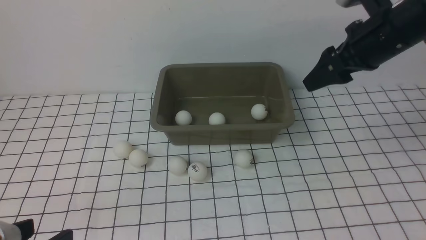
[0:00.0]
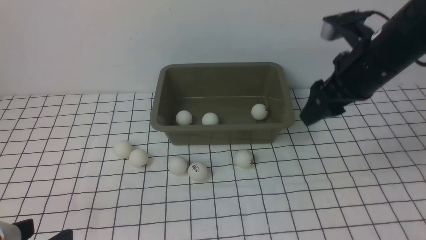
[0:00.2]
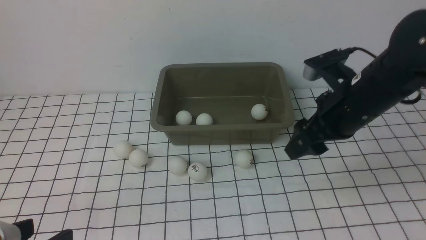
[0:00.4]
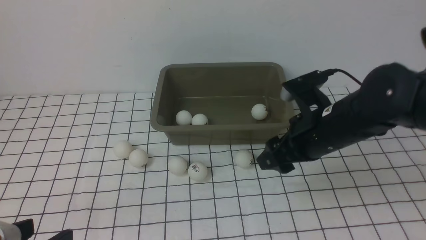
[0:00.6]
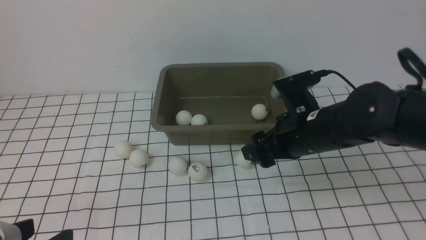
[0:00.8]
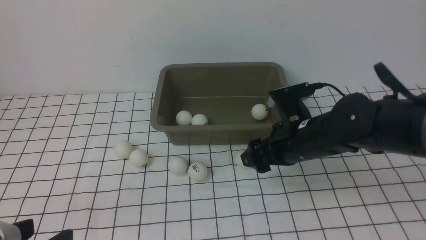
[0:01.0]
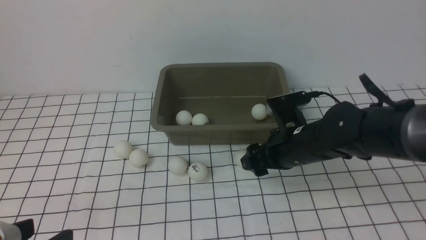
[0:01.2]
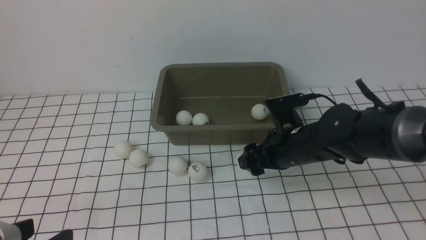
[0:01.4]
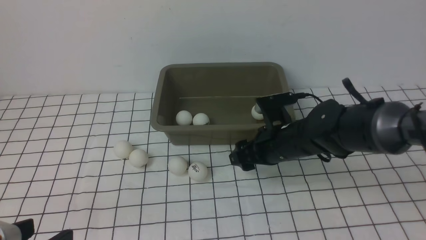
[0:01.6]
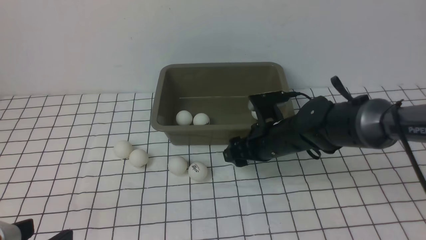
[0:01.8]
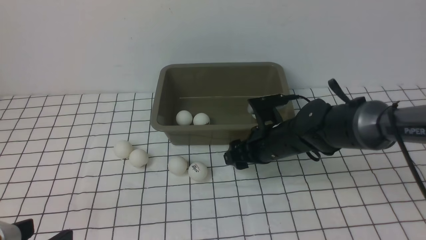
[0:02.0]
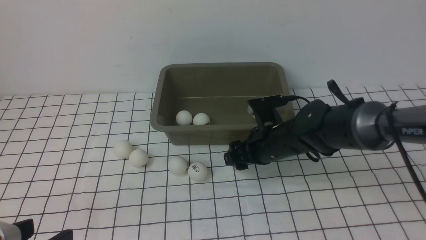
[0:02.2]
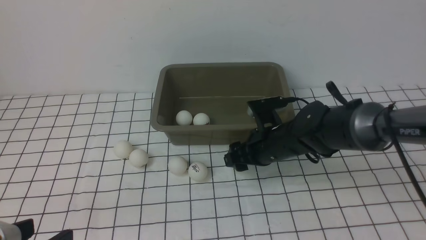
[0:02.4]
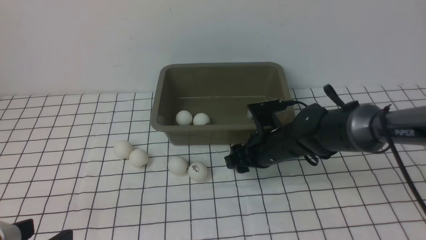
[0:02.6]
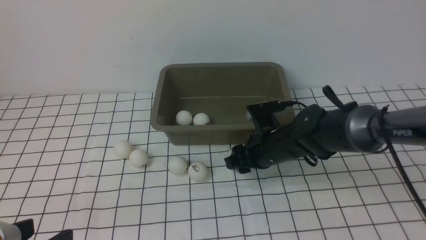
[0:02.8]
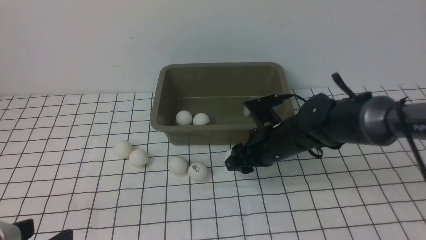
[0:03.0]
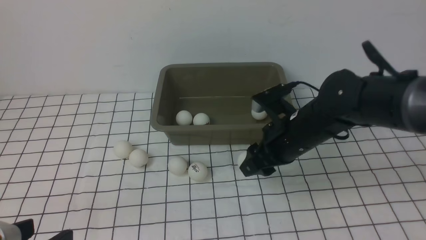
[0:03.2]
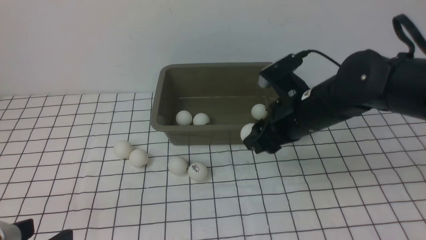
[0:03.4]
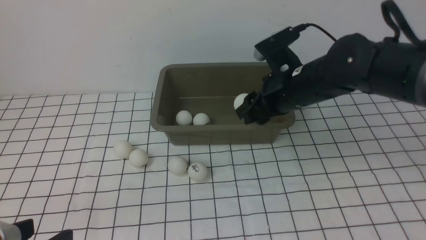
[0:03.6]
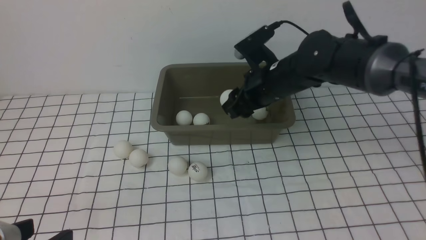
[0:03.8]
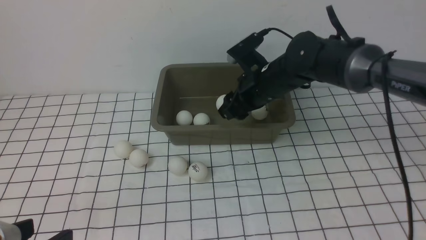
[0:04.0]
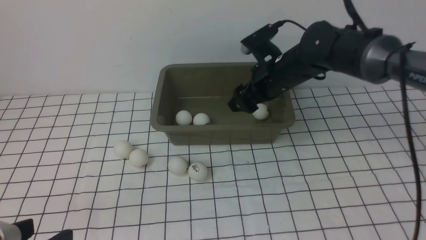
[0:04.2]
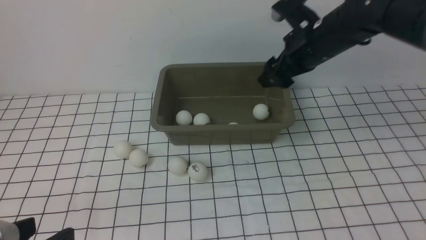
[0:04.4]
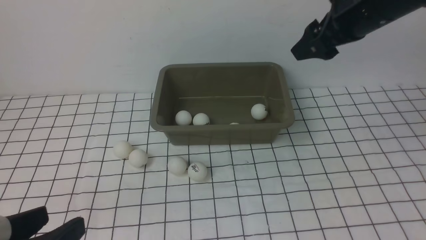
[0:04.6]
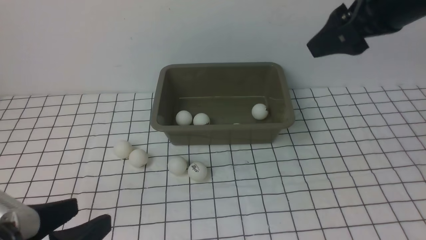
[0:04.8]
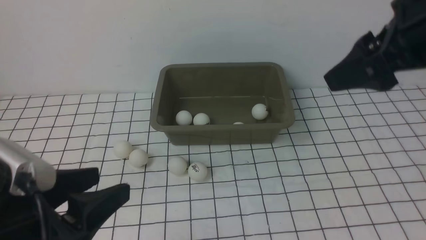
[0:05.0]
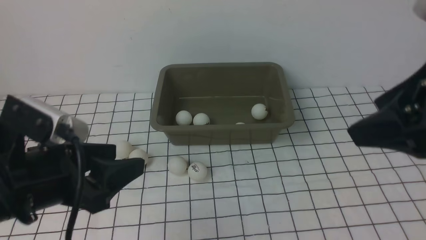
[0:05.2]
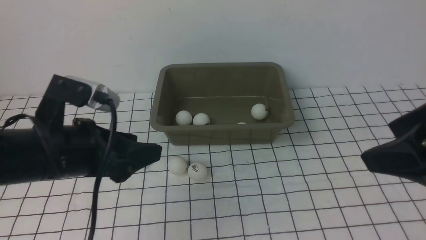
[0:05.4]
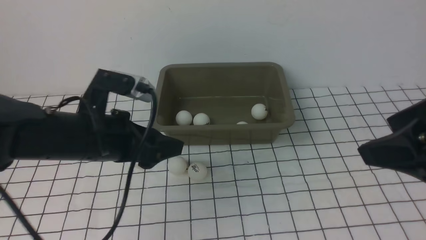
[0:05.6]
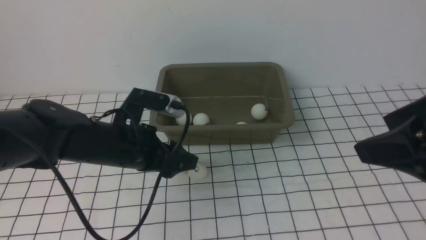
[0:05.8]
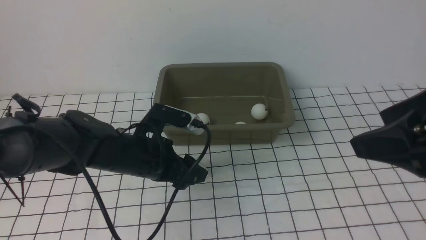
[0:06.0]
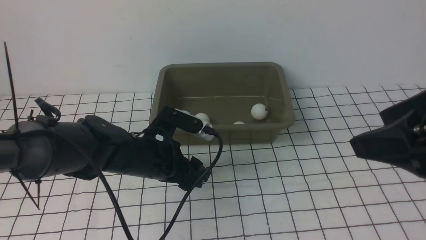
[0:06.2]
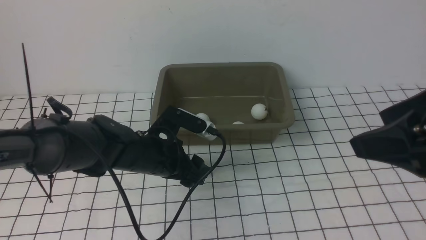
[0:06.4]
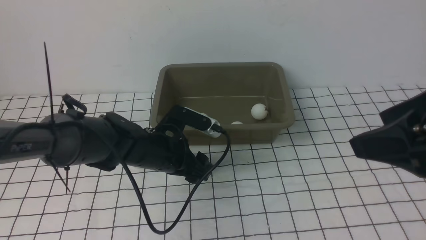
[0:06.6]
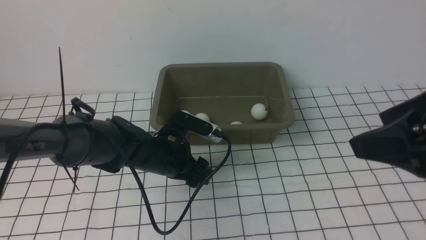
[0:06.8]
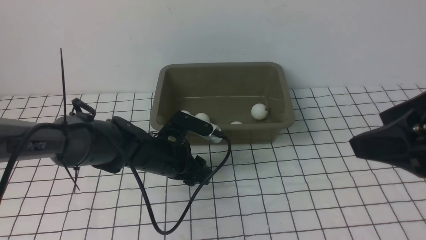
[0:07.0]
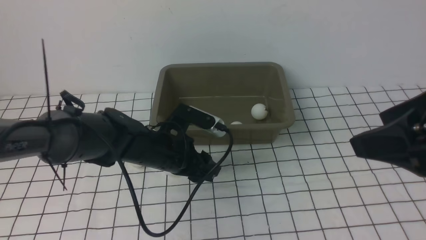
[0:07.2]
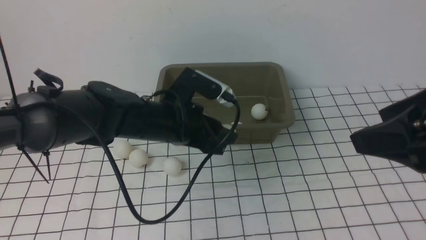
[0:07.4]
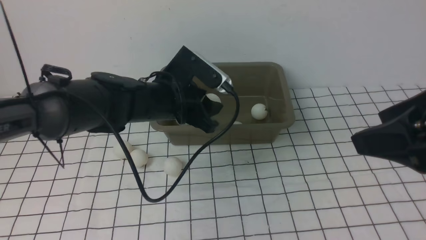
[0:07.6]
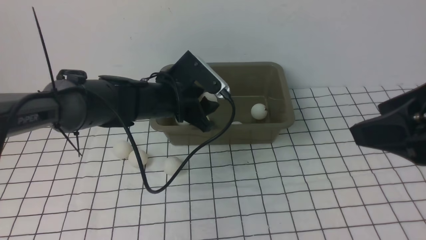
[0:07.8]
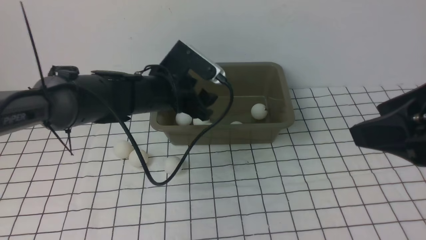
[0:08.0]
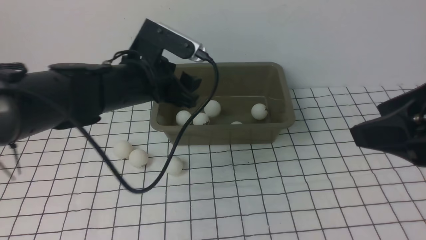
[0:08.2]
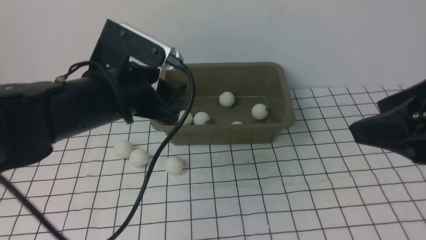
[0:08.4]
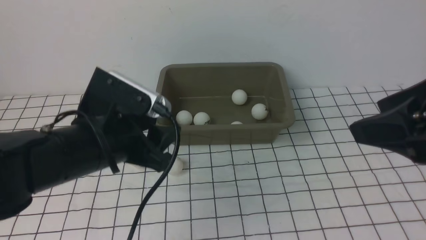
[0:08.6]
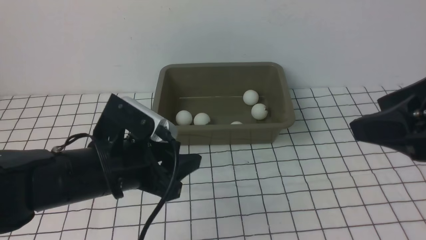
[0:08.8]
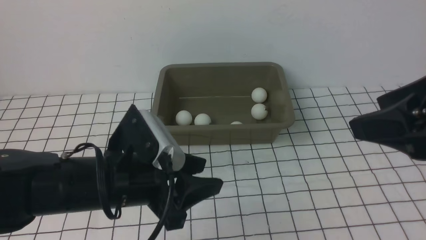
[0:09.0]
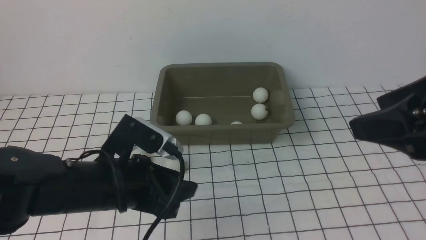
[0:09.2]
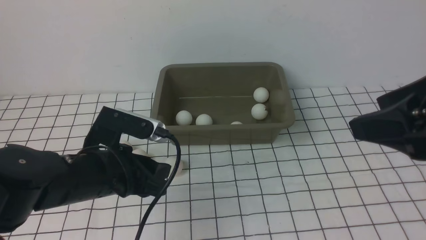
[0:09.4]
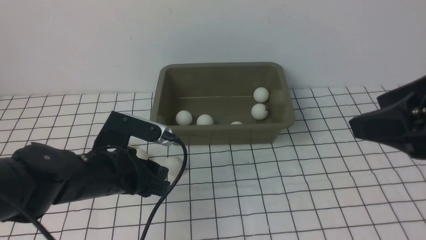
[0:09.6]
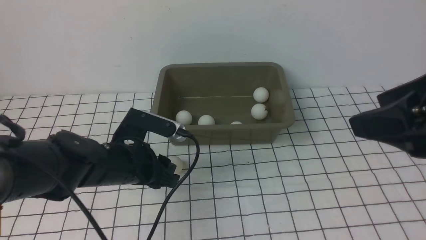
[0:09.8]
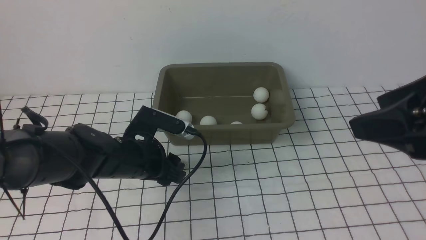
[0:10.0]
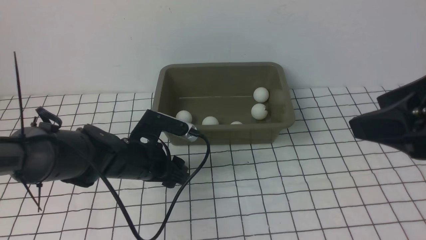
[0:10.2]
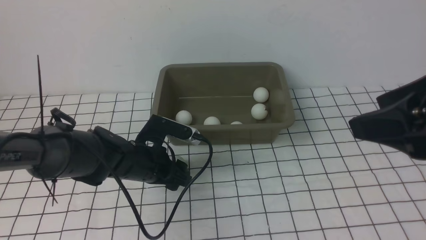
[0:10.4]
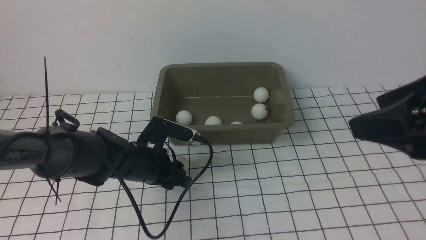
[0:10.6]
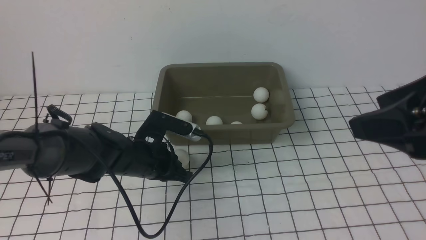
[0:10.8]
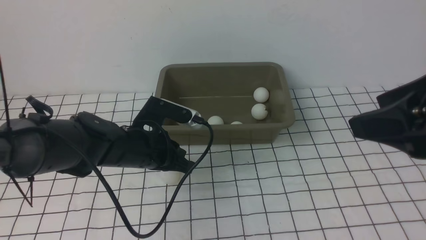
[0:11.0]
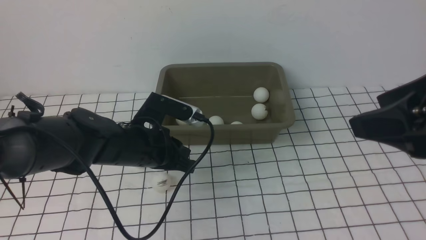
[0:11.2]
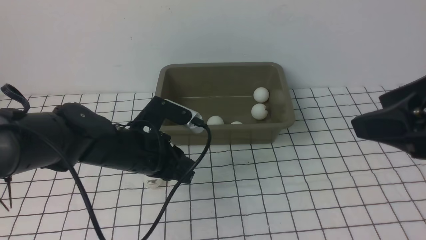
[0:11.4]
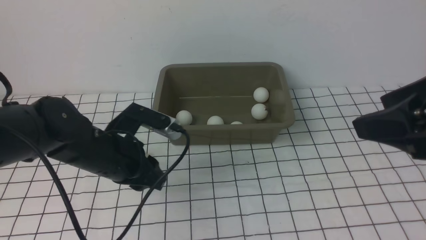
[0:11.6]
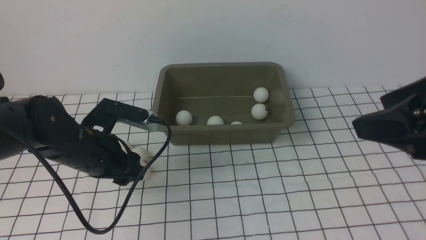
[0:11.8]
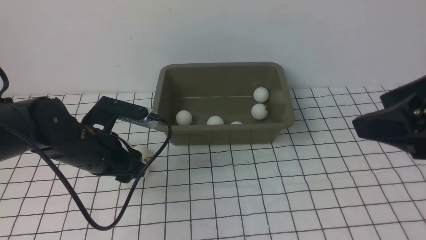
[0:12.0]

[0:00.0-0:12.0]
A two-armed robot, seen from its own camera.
Step, 0:00.0 to 0:03.0: use the right arm to clamp the table tennis ball closest to it.
Step, 0:03.2 to 0:04.2: use the right arm to put the table tennis ball into the box.
Step, 0:04.4 to 0:07.4: use the left arm to clamp the table tennis ball closest to it.
Step, 0:07.6 to 0:08.0: use the left arm to put the table tennis ball into the box.
0:00.0 to 0:01.6: The right gripper goes roughly 20 cm downward and to the left.
0:01.6 to 0:03.0: The right gripper closes.
0:03.0 to 0:04.4: The right gripper moves upward and to the right, about 20 cm, and opens.
0:04.4 to 0:06.0: The left gripper goes approximately 25 cm forward and to the right. The right gripper travels backward by some 25 cm.
0:06.0 to 0:07.6: The left gripper shifts roughly 5 cm forward, and closes up.
0:07.6 to 0:09.0: The left gripper heads backward, covering approximately 15 cm, and opens and closes again.
0:09.0 to 0:10.4: The left gripper heads forward and downward, covering approximately 15 cm, and opens its fingers.
0:10.4 to 0:12.0: The left gripper goes approximately 5 cm to the left and upward, and closes, then opens again.

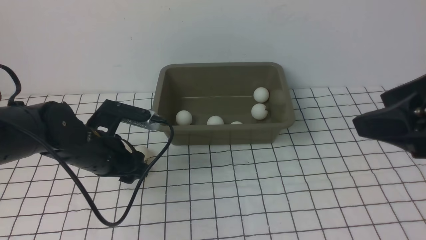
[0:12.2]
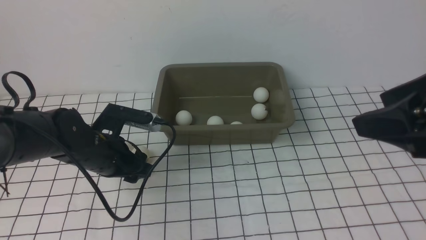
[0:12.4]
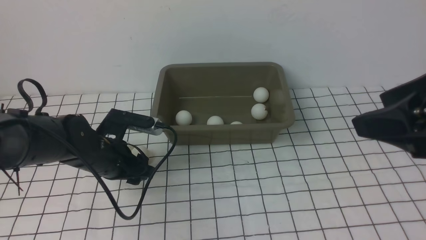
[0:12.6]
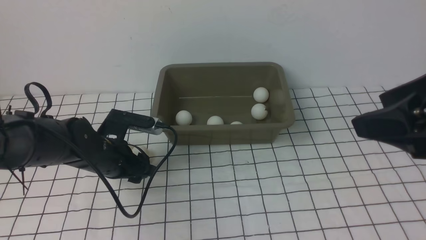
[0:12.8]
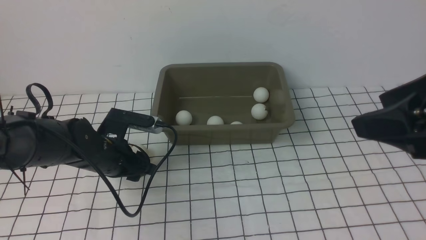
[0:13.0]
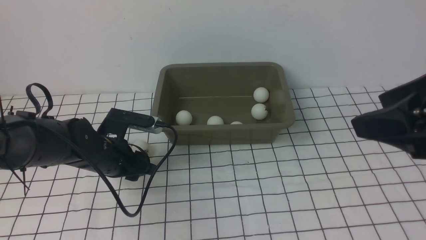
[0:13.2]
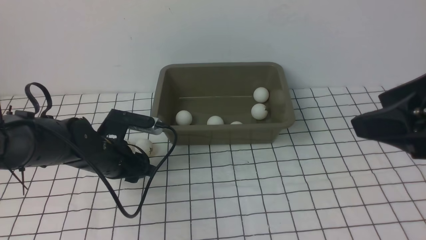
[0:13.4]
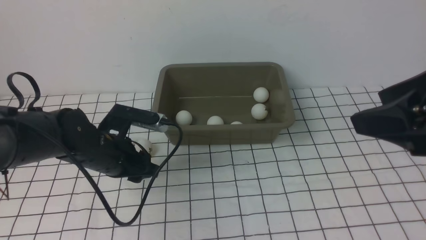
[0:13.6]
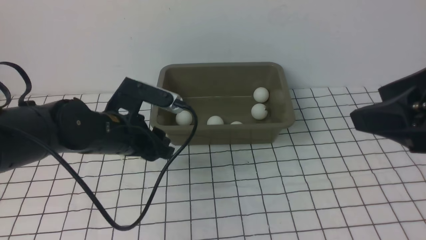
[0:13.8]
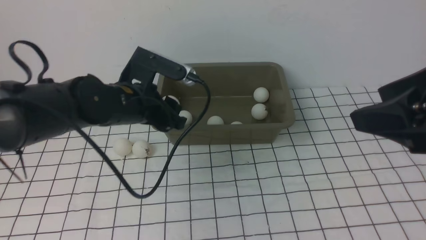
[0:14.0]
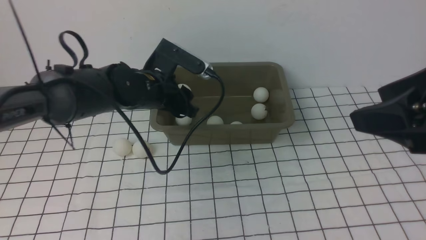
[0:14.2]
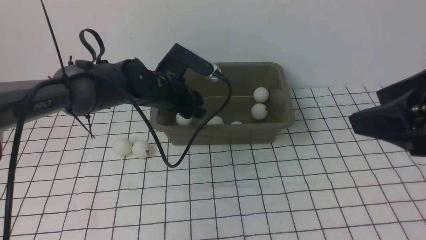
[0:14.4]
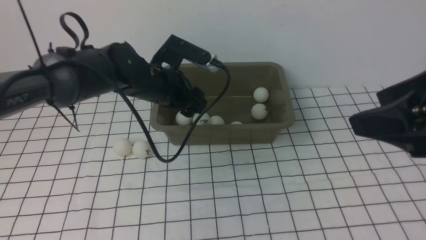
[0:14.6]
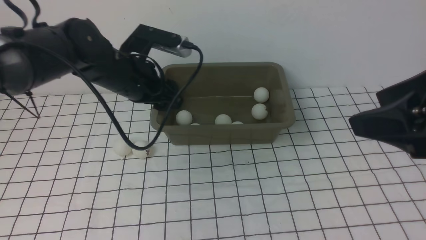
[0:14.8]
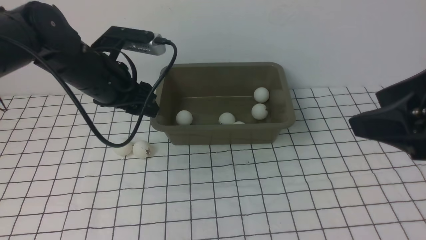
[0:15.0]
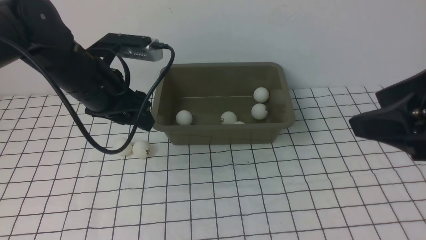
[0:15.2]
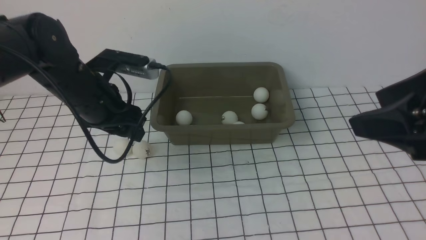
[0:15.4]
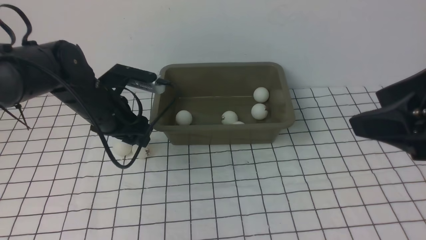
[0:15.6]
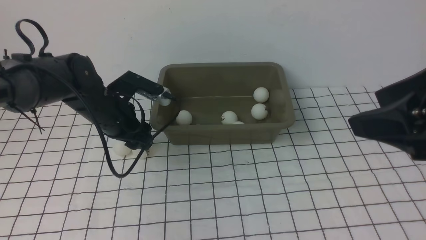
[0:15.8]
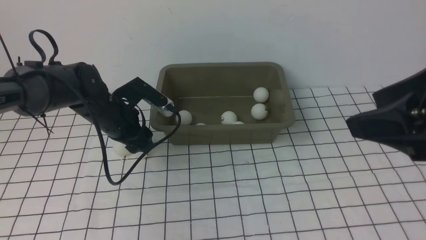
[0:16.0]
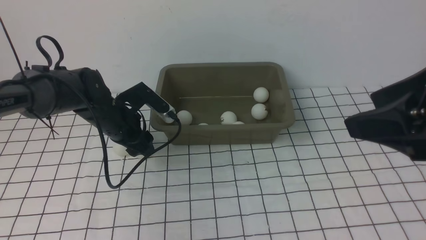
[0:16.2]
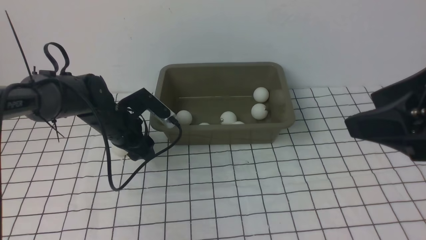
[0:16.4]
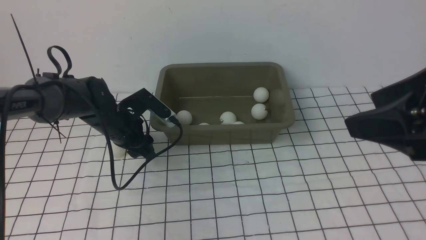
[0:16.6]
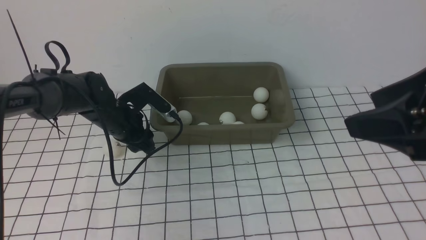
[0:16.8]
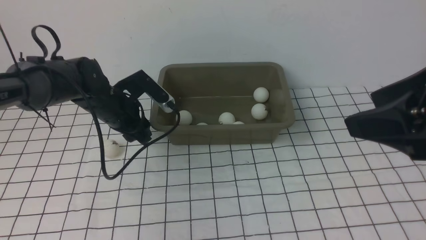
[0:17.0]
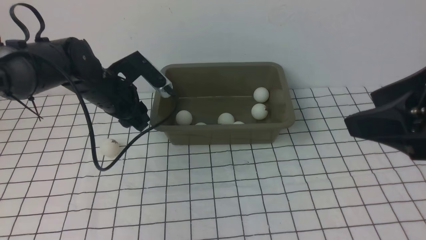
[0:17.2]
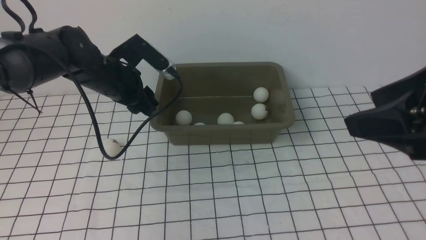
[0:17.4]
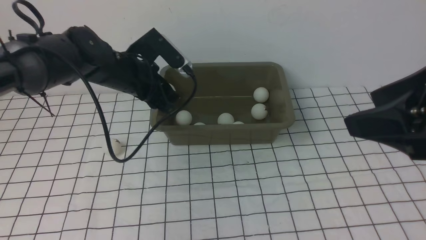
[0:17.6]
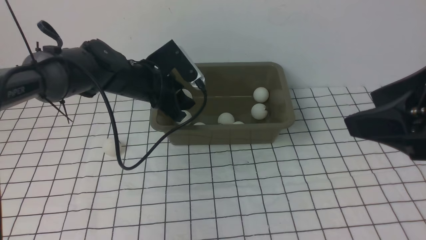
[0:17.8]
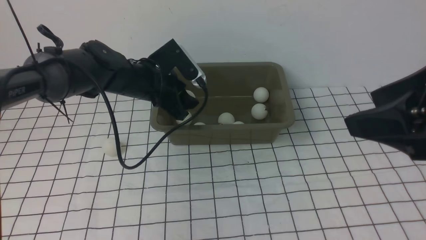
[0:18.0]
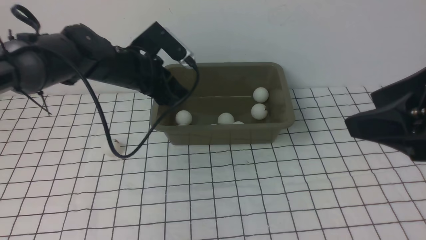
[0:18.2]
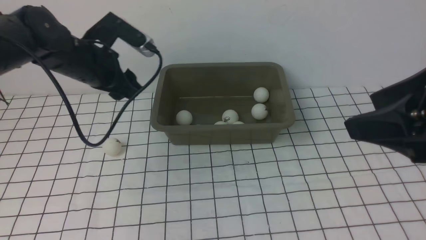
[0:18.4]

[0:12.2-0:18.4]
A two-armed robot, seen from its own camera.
Step, 0:14.0 to 0:14.4: use the left arm to put the table tennis ball into the box.
Step, 0:14.6 to 0:17.0: use the left arm to clamp the table tennis ball closest to it.
Step, 0:17.2 to 0:18.2: use the left arm to put the table tennis ball into the box.
0:12.2 to 0:13.8: The left gripper travels to the right, forward and upward by approximately 10 cm, and closes.
0:13.8 to 0:15.4: The left gripper shifts approximately 5 cm to the left, and opens up.
0:15.4 to 0:16.8: The left gripper closes.
0:16.8 to 0:18.4: The left gripper moves upward, approximately 5 cm, and opens up.
